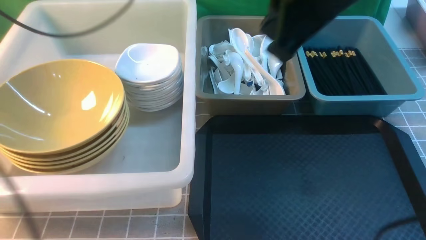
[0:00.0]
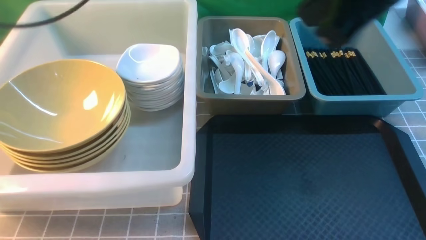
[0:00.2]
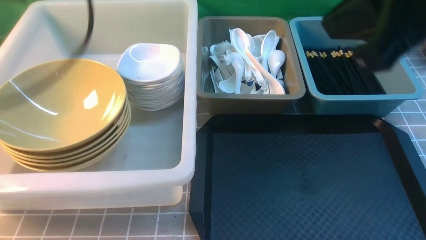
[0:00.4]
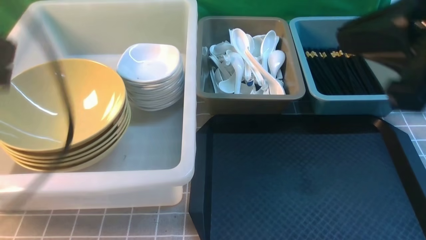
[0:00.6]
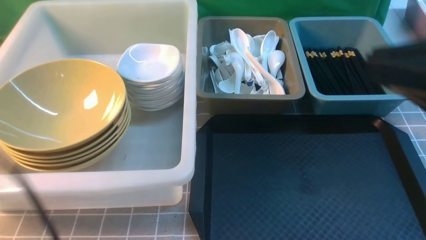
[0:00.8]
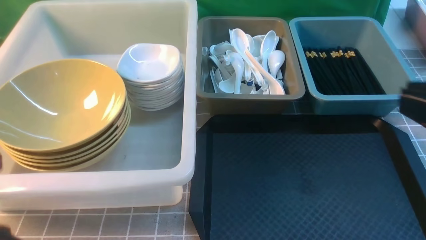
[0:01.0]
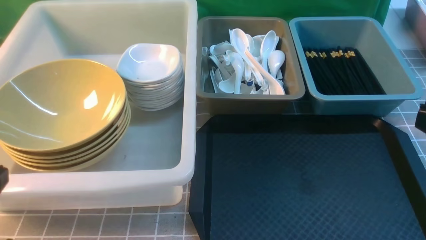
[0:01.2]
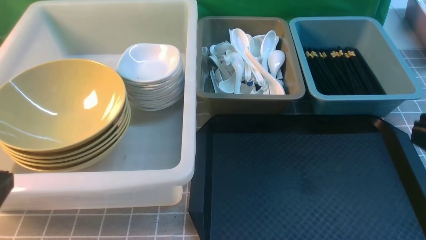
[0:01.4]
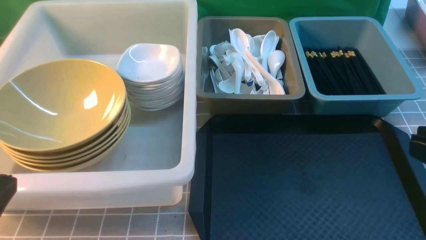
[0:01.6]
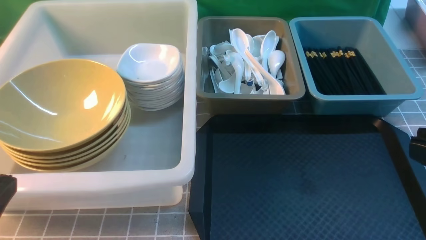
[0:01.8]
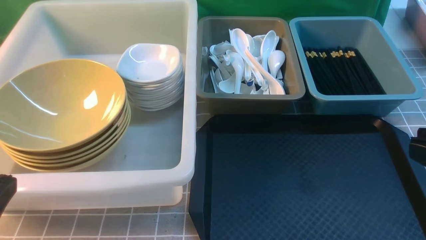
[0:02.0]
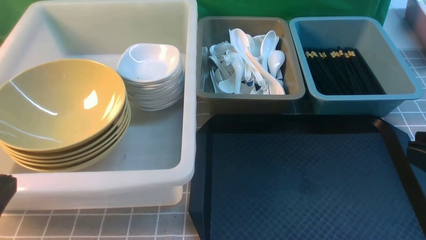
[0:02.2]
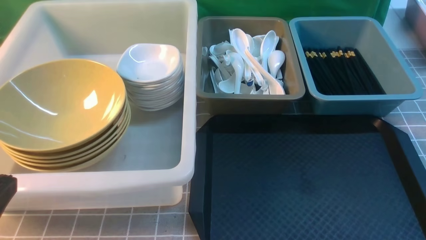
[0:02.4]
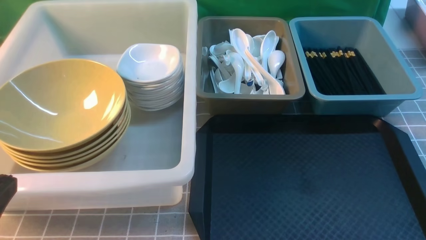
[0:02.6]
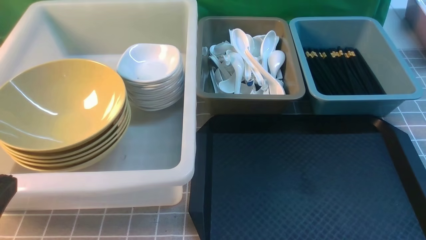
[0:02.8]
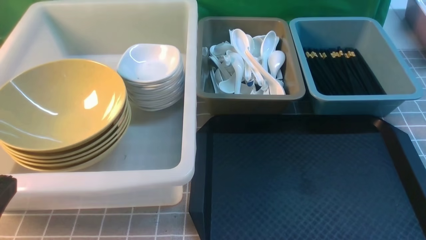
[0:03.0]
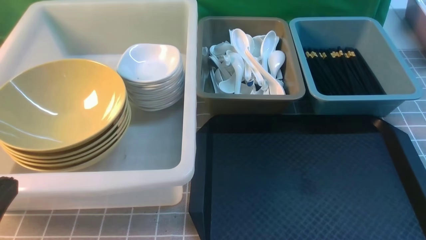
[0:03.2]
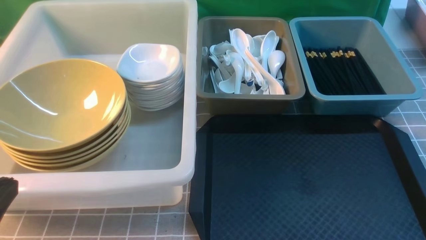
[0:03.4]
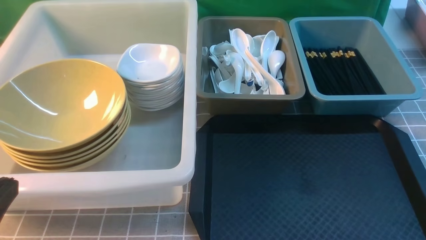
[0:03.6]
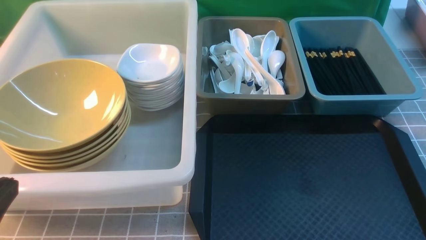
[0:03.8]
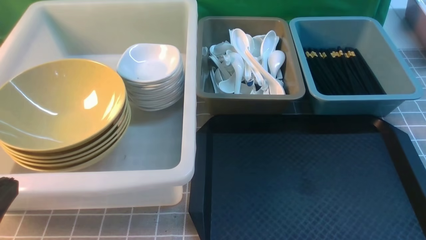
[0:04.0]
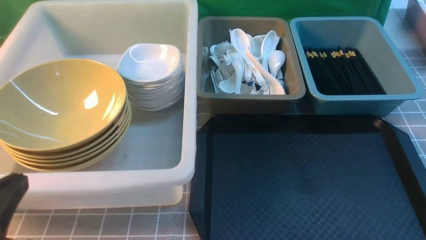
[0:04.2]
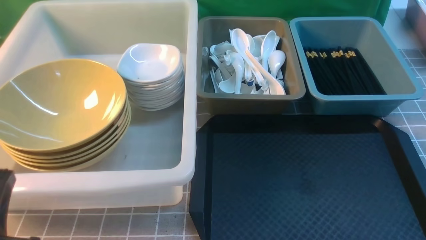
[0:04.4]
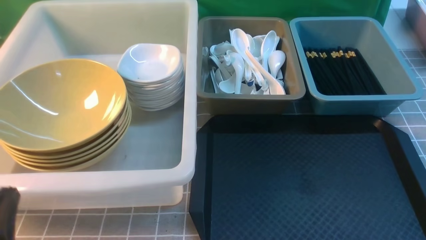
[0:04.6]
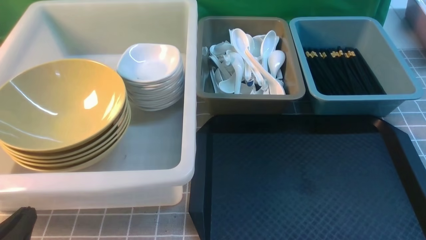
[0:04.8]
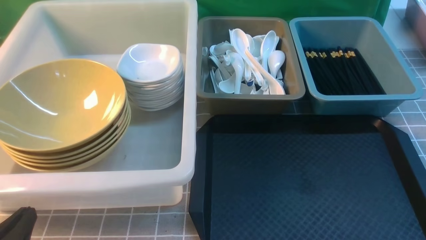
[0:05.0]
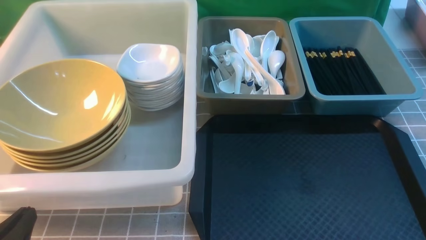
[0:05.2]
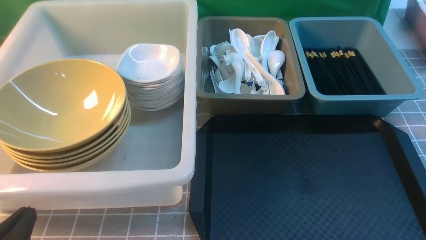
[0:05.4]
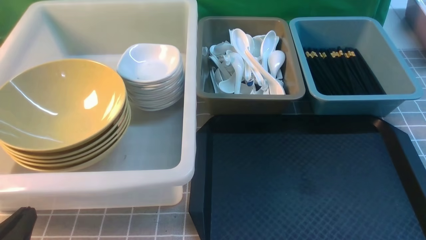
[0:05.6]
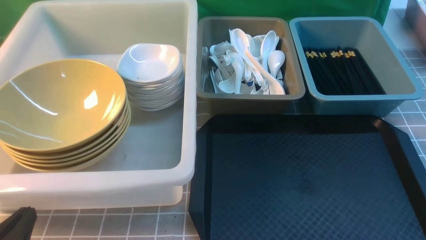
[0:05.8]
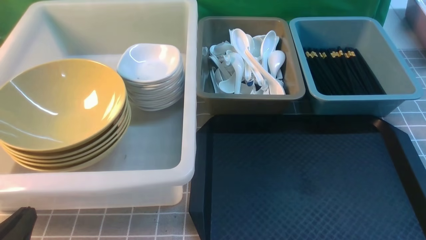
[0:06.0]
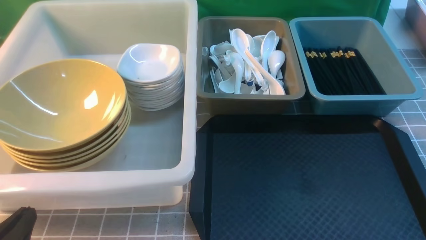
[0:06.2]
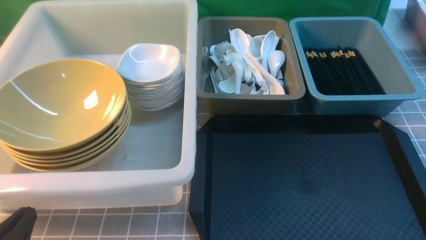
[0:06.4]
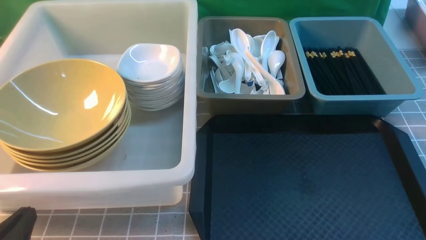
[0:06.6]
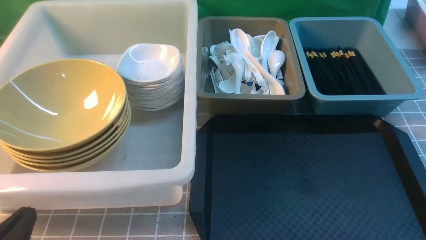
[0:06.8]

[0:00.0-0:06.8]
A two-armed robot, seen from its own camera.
Task of the whole recording: on grey table put chopsticks spoon bowls plates into blue grey white boxes.
0:00.0 to 0:01.4: The left gripper travels backward and downward by approximately 30 cm; the right gripper heads backward, to the right and downward, covering about 20 cm.
0:04.0 to 0:05.4: The left gripper goes roughly 10 cm downward.
0:05.4 to 0:06.8: Both grippers stay put.
